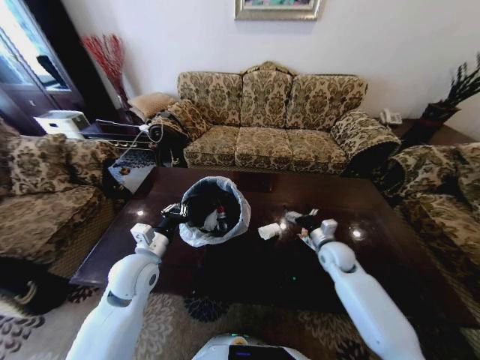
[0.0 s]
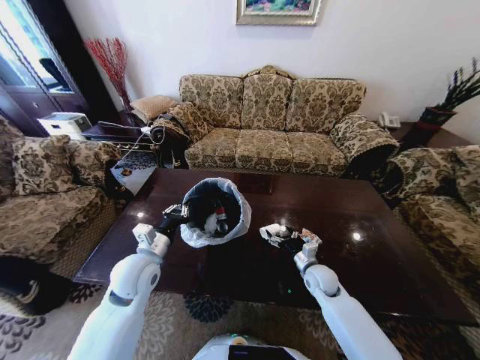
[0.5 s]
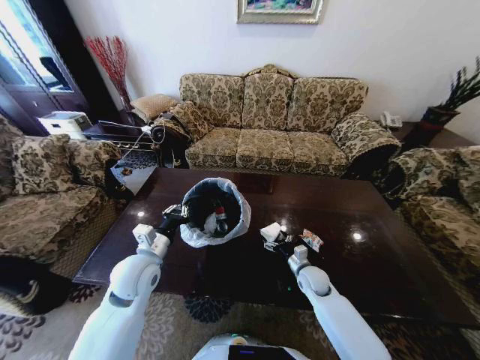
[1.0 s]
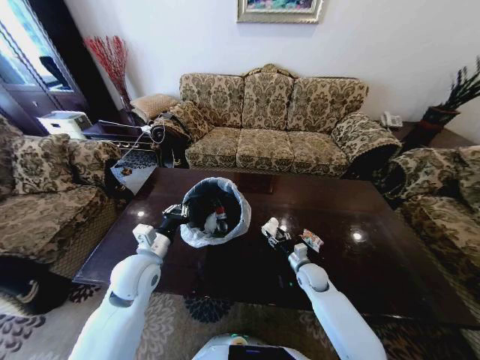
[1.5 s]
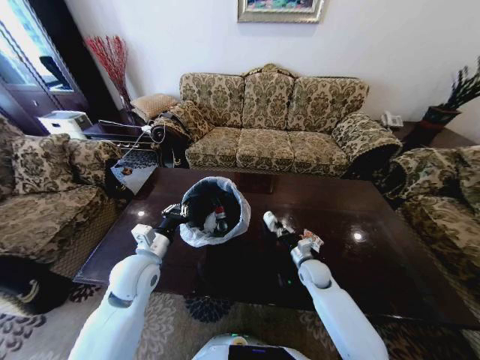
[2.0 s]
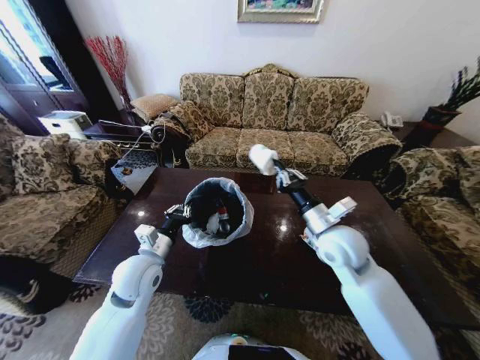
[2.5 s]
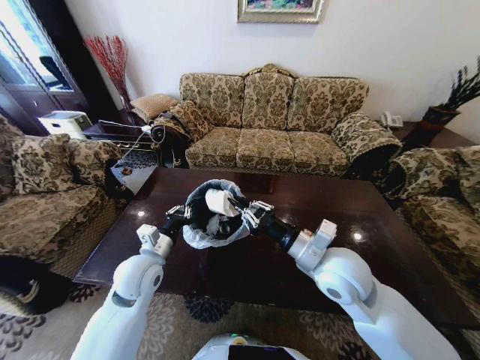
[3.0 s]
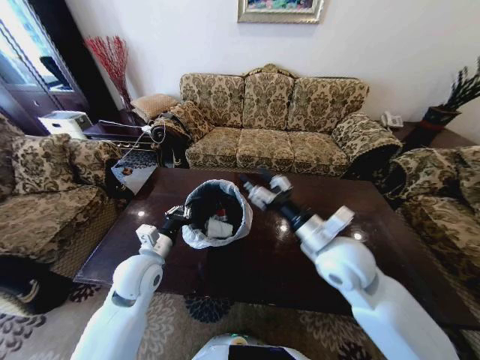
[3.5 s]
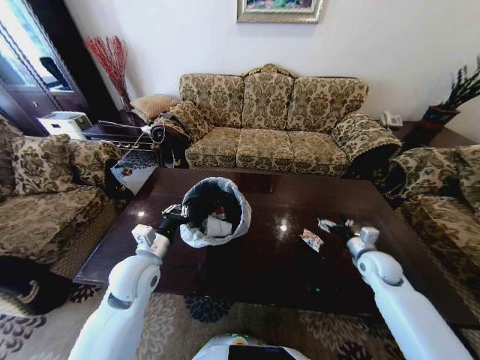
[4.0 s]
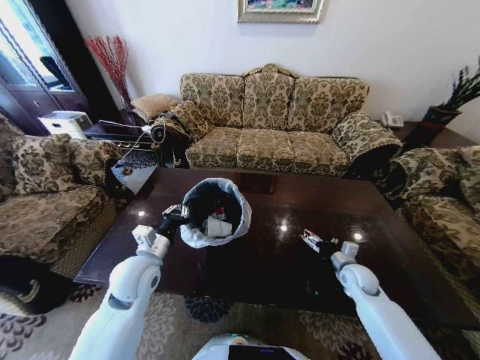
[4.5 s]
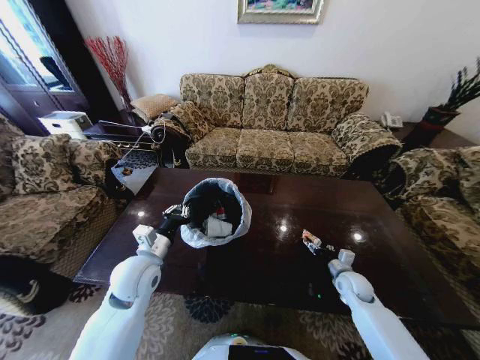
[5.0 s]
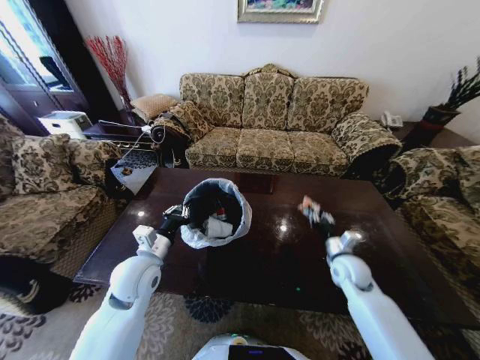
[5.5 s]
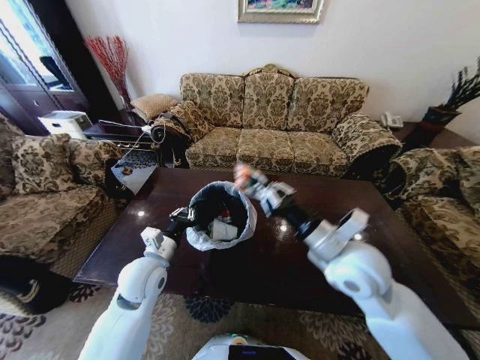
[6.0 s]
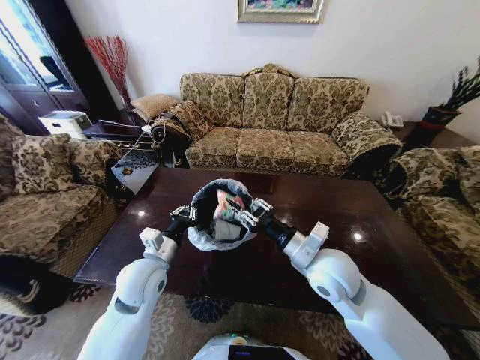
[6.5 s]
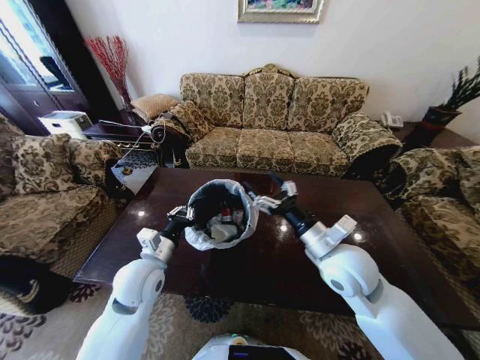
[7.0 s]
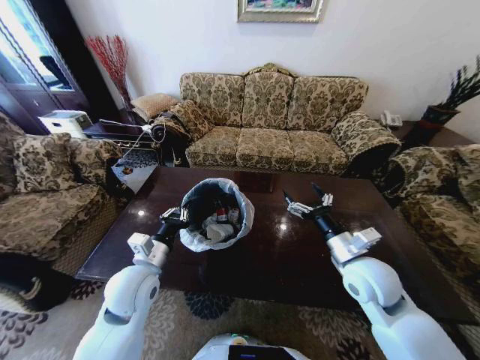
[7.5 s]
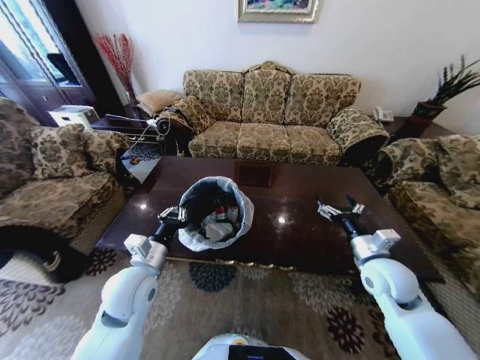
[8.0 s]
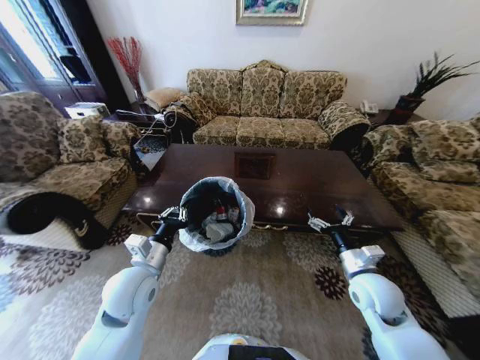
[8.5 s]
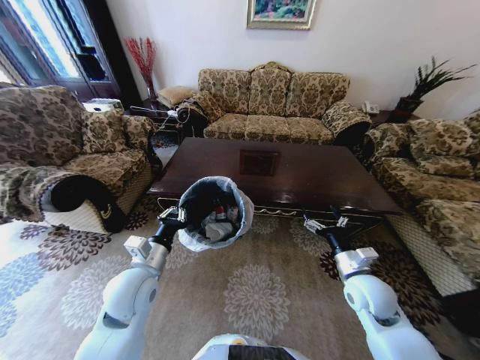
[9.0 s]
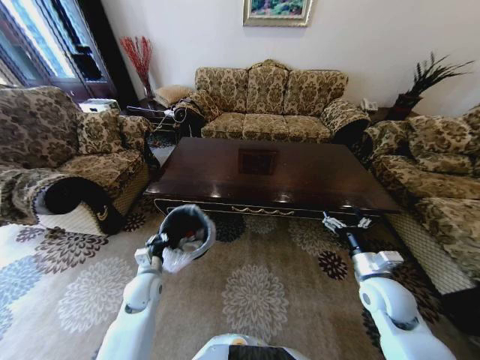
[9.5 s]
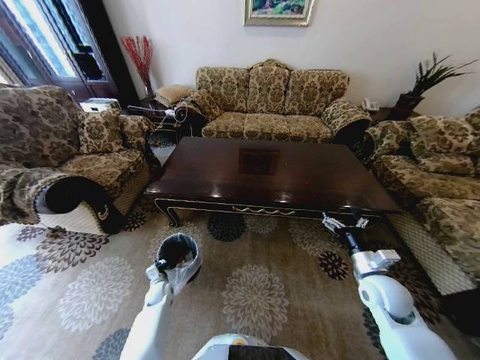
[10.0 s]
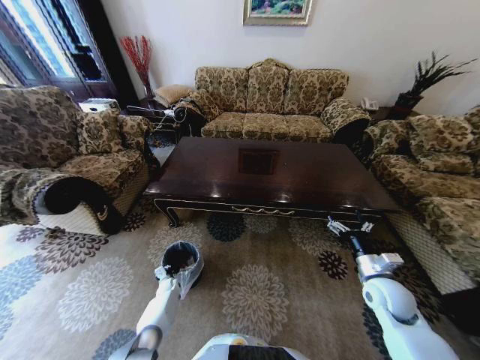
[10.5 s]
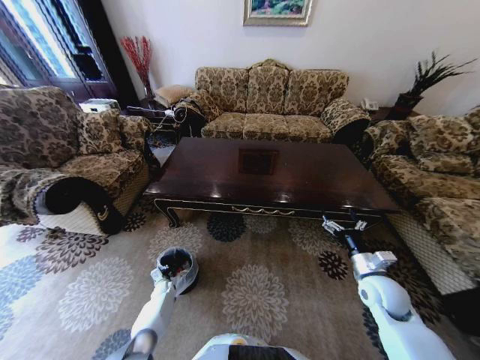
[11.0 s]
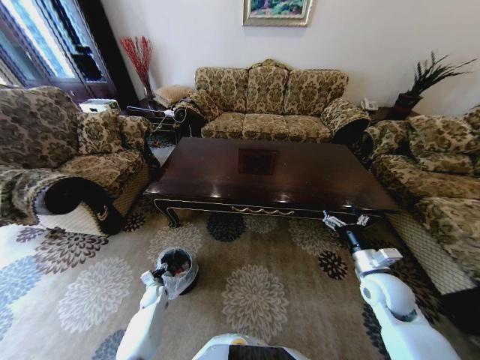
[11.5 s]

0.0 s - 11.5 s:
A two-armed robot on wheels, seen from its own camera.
Task of the whole recording: Move to the front of the table and place the trash on the table into the trash bin.
0.0 s - 2.0 s: The right gripper is displaced downward and to the left by roughly 10 cm, and closes its fingers.
2.0 s - 4.0 s: The right gripper travels to the right by some 15 cm, goes upward and returns, approximately 25 cm each way, and opens its fingers.
4.0 s - 6.0 s: The right gripper shifts about 30 cm to the left, upward and backward, and closes up.
6.0 s - 7.5 s: The right gripper goes approximately 10 cm downward and to the right, and opens its fingers.
7.5 s - 9.5 s: The left gripper moves downward, about 10 cm; the right gripper travels downward and to the right by roughly 10 cm.
9.5 s - 11.5 s: The left gripper heads downward, covering roughly 25 cm, and opens.

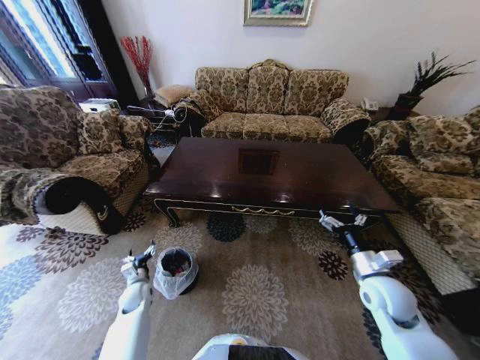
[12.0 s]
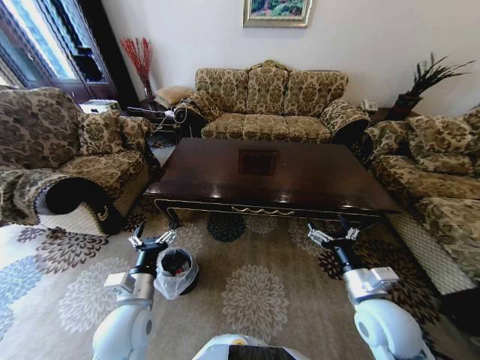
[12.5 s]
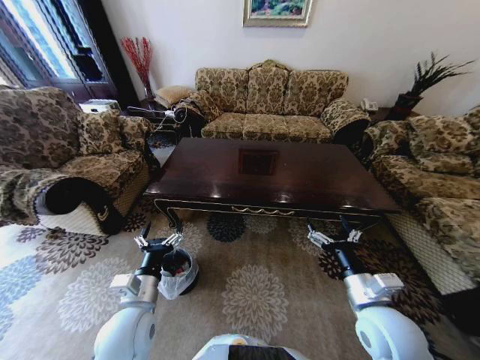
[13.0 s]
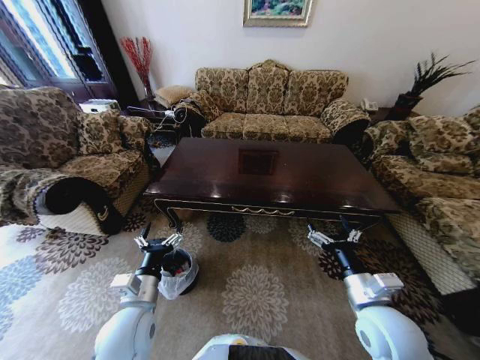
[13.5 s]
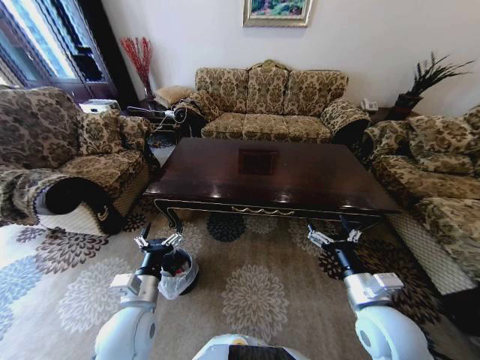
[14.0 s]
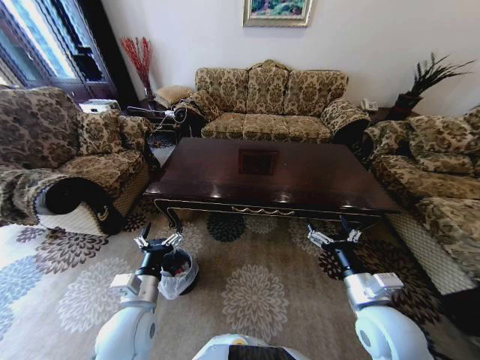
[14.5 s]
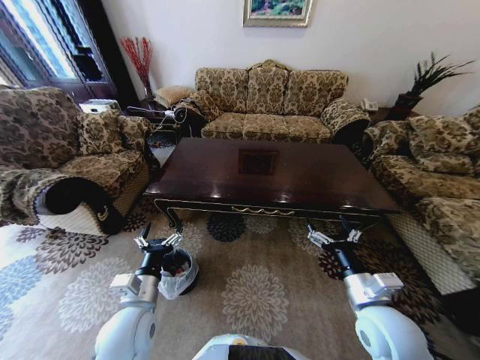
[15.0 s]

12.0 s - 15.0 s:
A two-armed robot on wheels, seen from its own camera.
Task of the whole recording: Move to the front of the table and place the trash on the table into the trash bin.
12.0 s - 13.5 s: The left gripper travels upward, to the right and backward by approximately 30 cm. The right gripper is displaced backward and to the left by roughly 10 cm.
13.5 s - 15.0 s: Both grippers stay put.

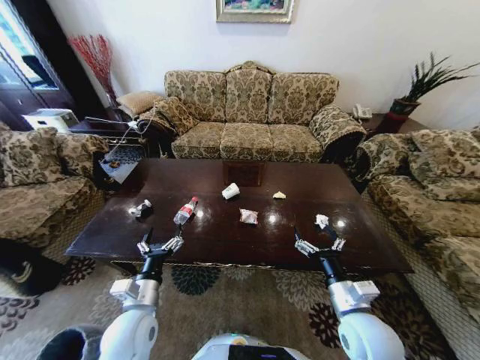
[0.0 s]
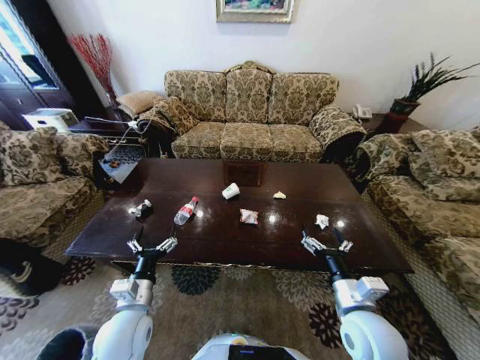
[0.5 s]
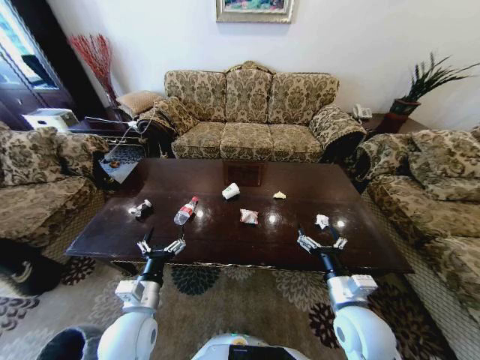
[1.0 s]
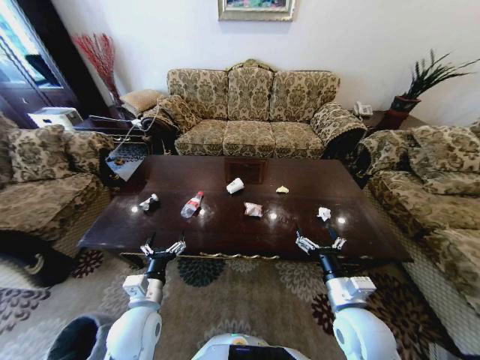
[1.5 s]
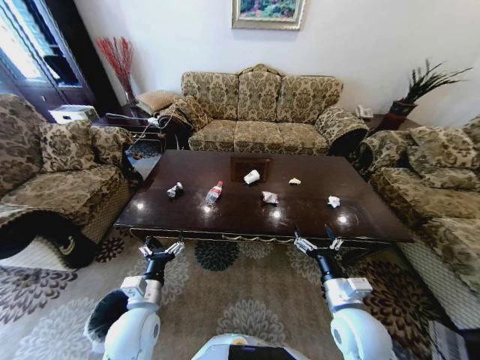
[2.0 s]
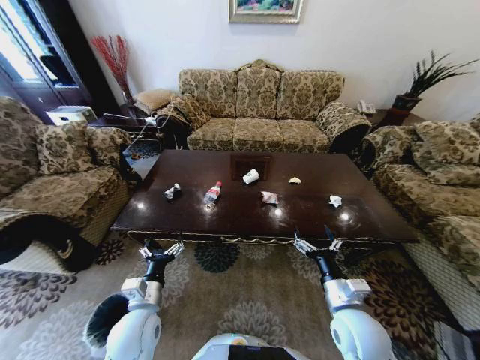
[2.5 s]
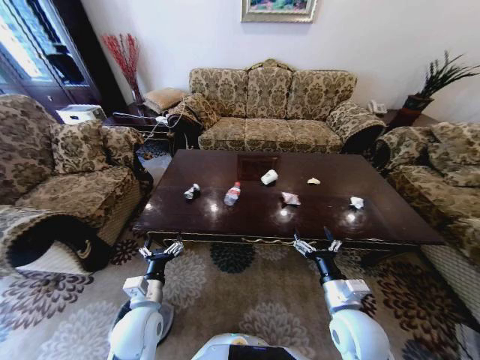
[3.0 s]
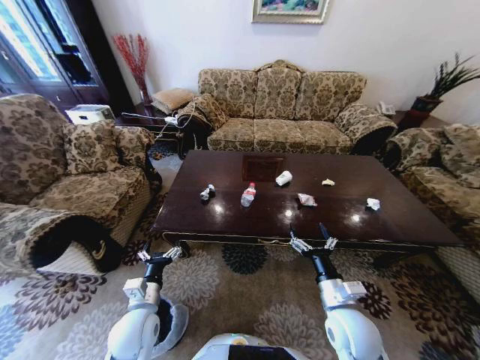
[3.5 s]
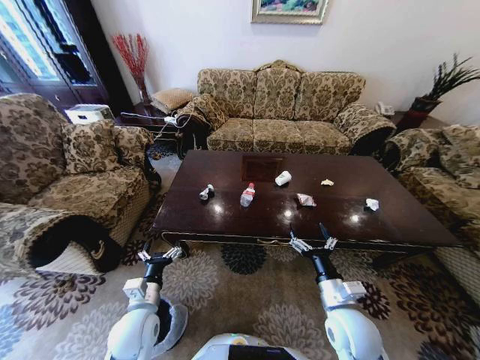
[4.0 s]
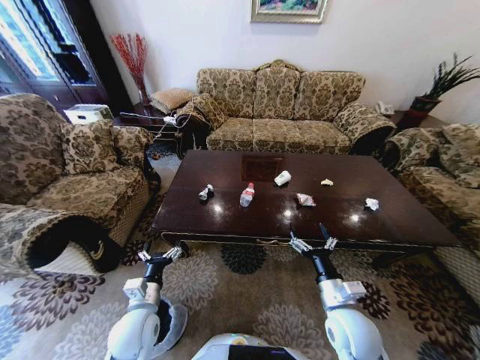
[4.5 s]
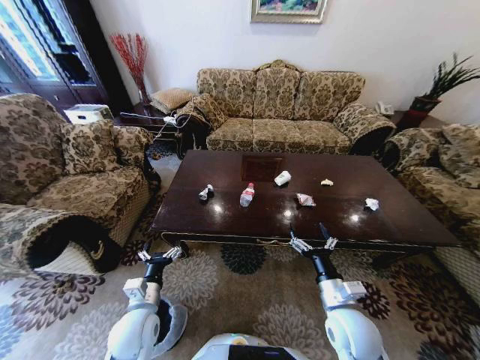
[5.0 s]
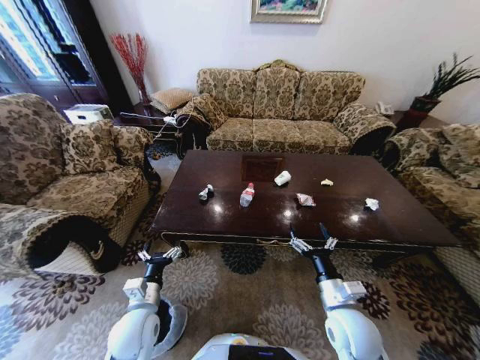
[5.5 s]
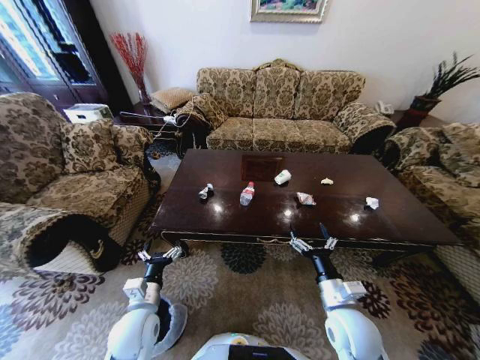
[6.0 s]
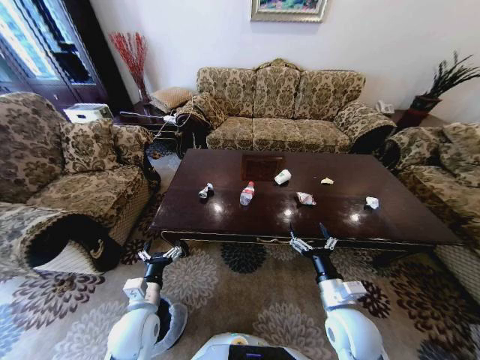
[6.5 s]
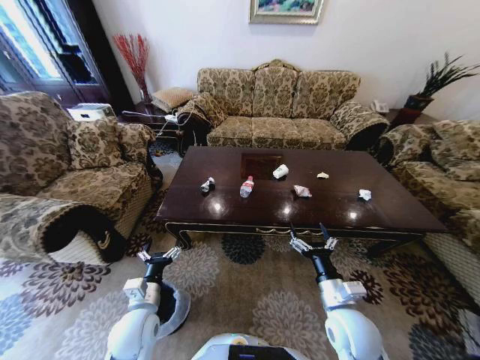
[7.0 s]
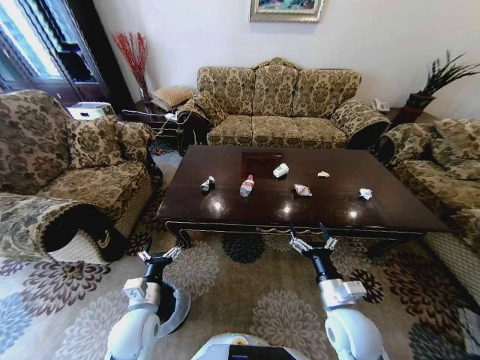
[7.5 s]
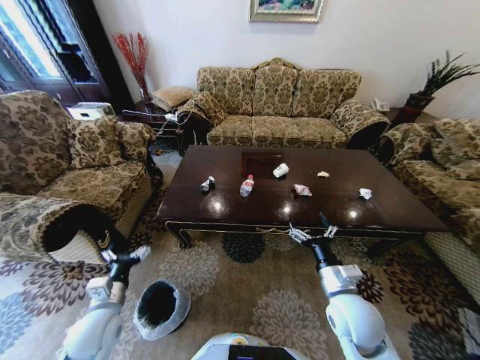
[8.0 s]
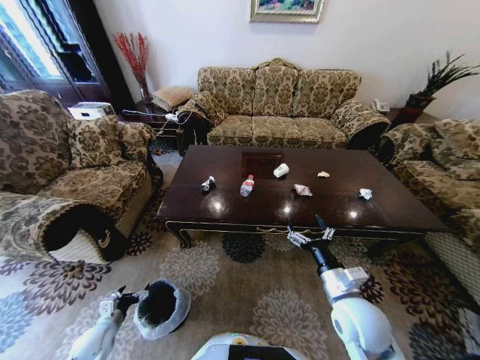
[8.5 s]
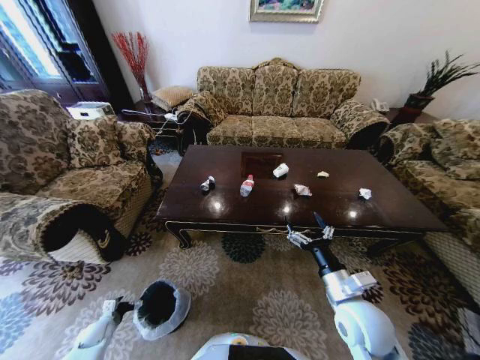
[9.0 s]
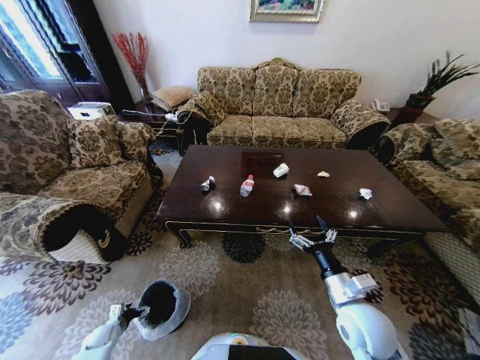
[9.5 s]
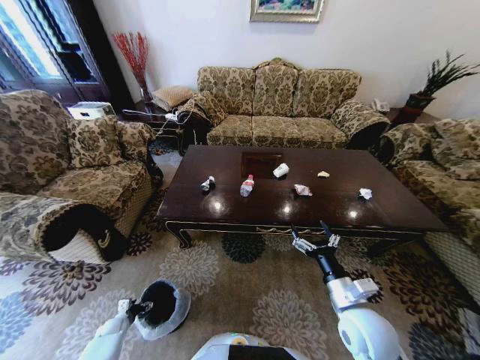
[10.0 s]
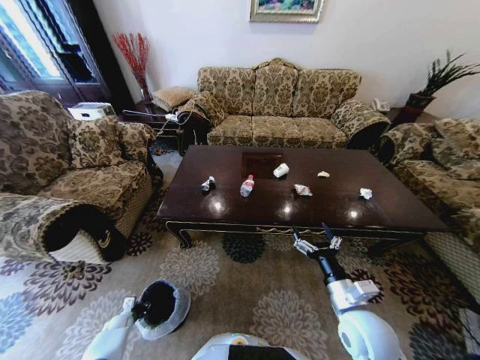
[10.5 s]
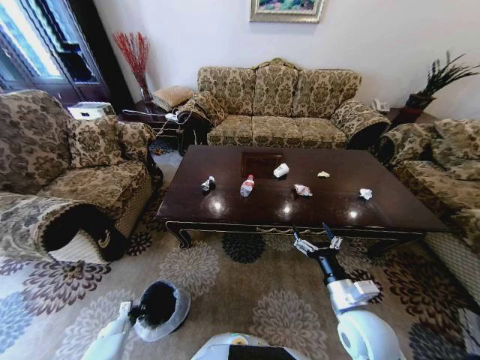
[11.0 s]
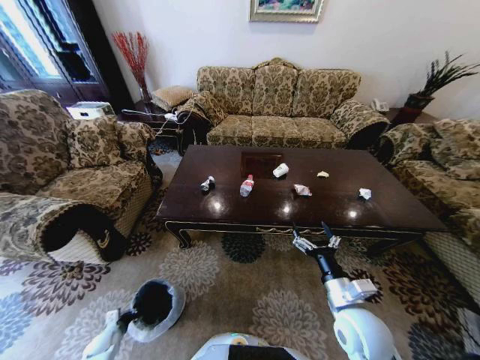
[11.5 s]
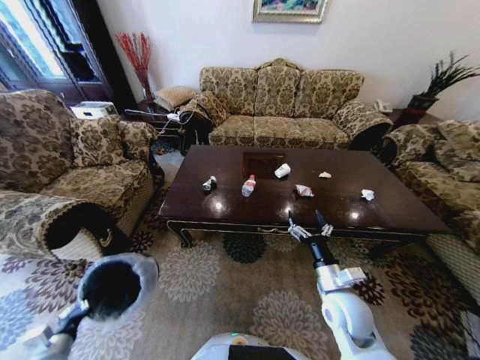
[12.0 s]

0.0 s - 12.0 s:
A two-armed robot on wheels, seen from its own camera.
Task of the whole recording: Move to the front of the table and place the trash on the table into the trash bin.
4.0 s - 6.0 s: Both grippers stay about where they are.
6.0 s - 8.0 s: The left gripper travels to the left by approximately 10 cm.
8.0 s - 10.0 s: The left gripper heads downward and to the left, covering roughly 35 cm.
10.0 s - 12.0 s: The left gripper is displaced upward and backward by about 25 cm, and closes its fingers.
